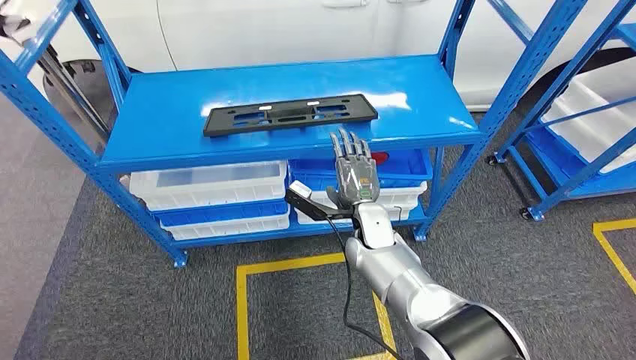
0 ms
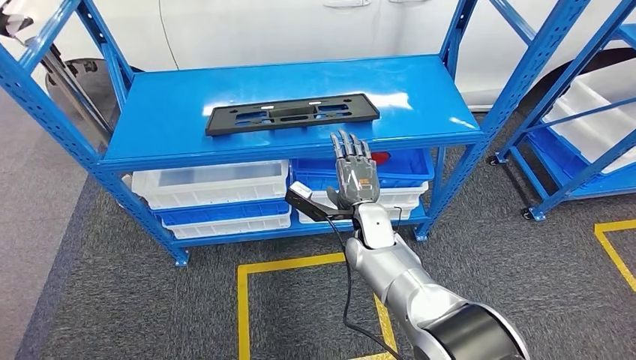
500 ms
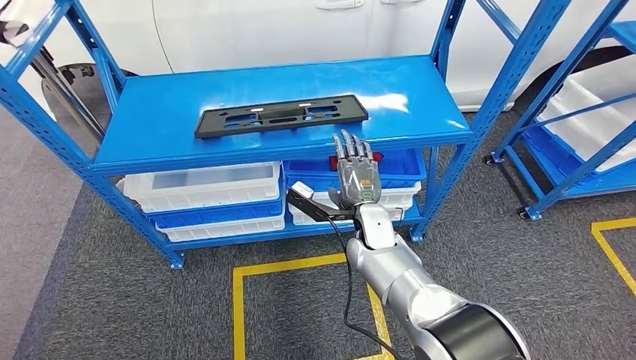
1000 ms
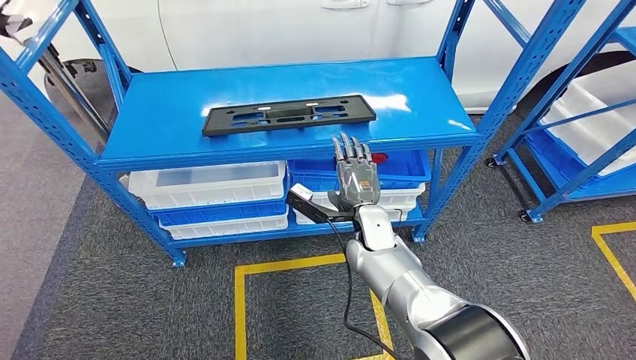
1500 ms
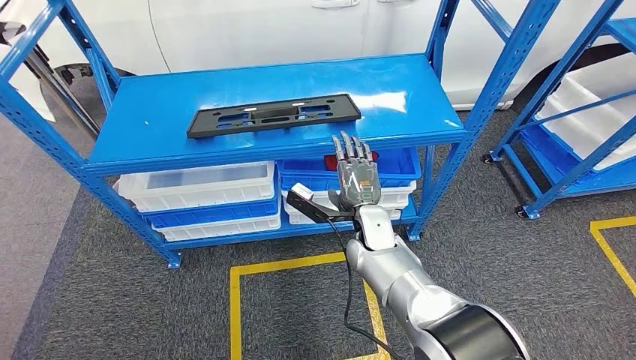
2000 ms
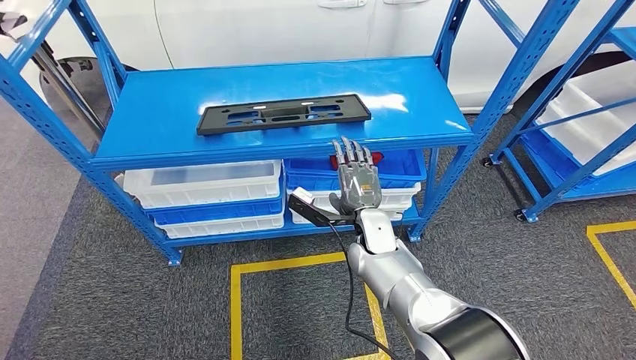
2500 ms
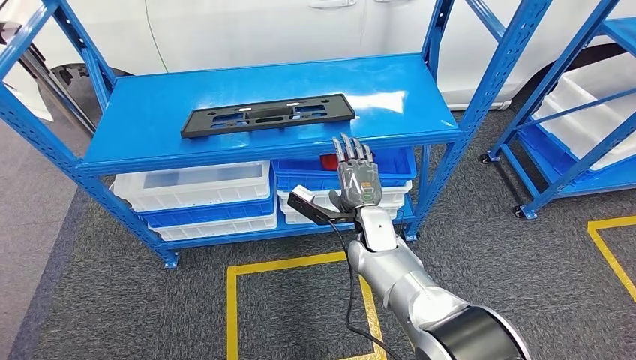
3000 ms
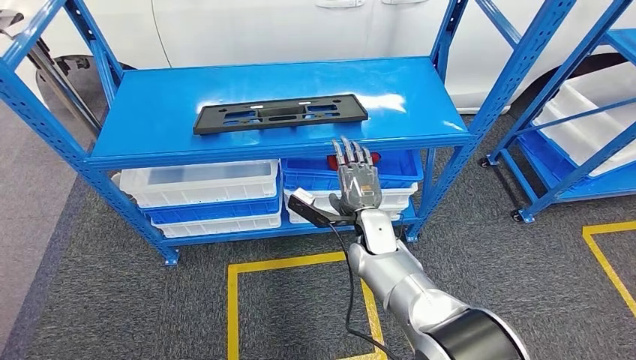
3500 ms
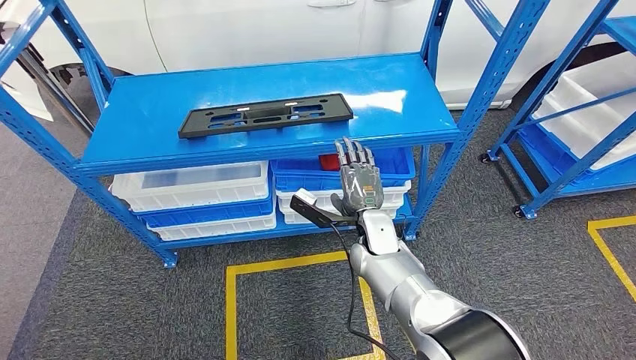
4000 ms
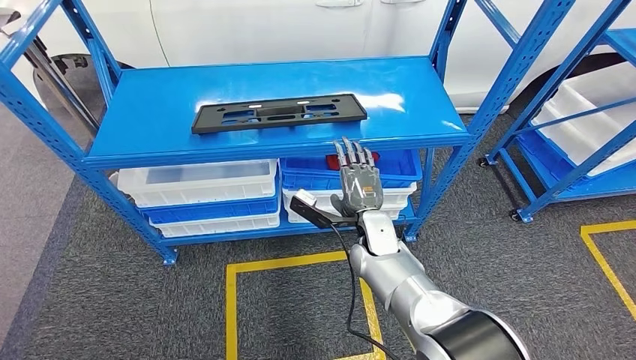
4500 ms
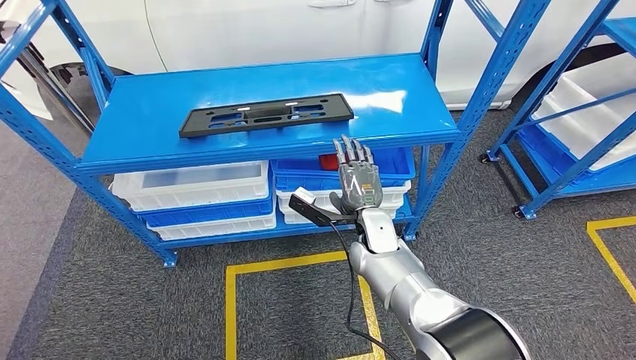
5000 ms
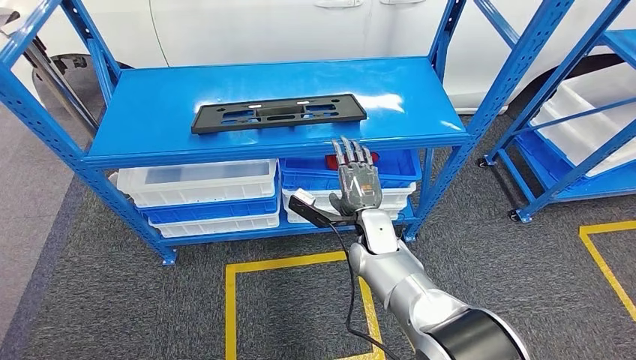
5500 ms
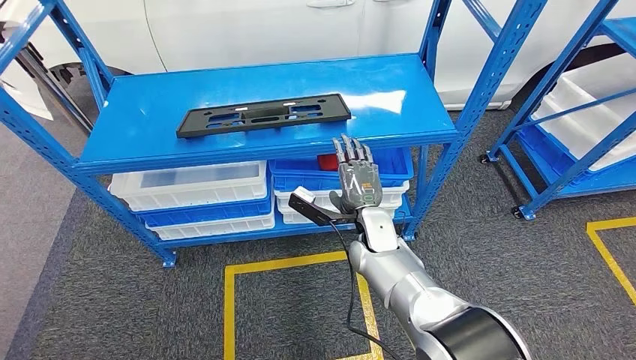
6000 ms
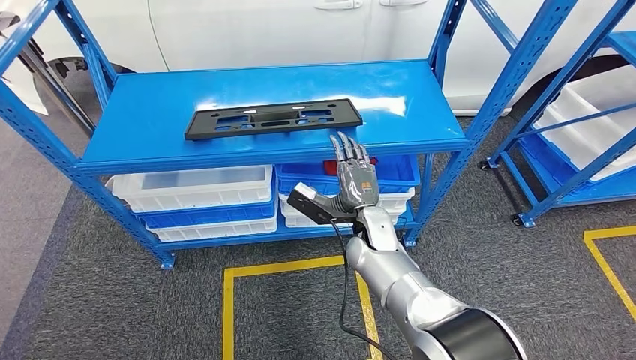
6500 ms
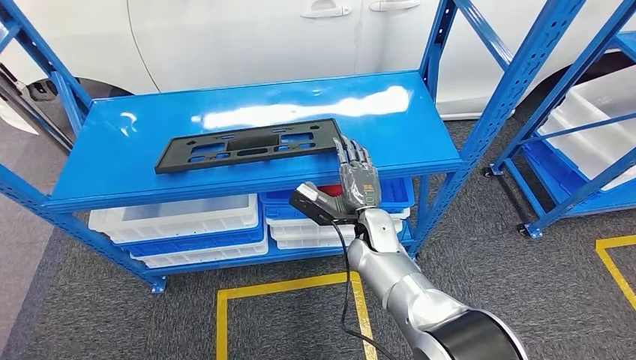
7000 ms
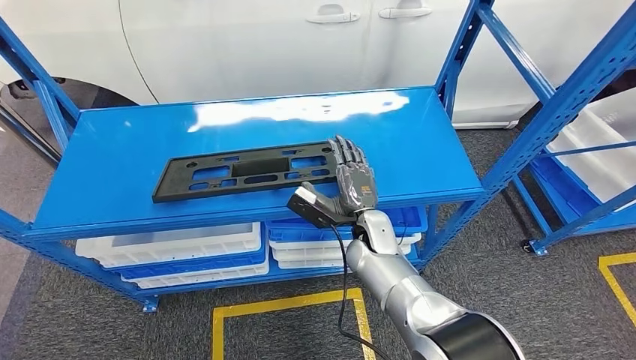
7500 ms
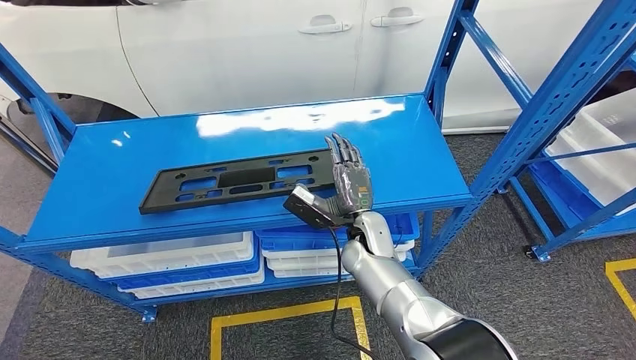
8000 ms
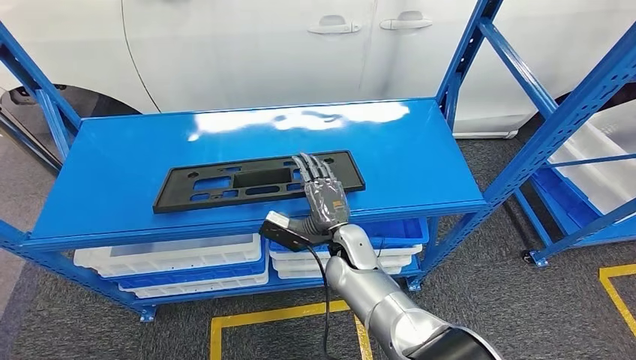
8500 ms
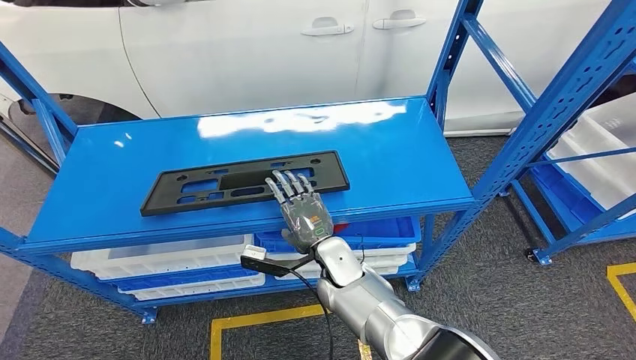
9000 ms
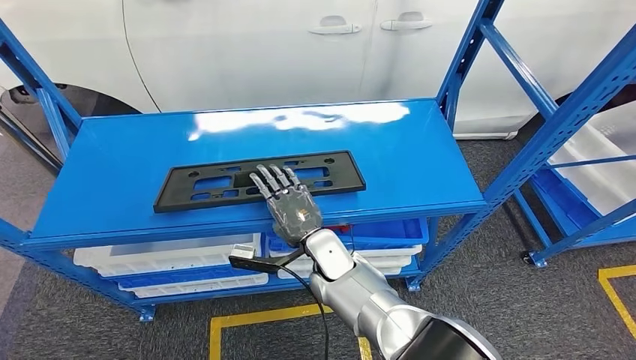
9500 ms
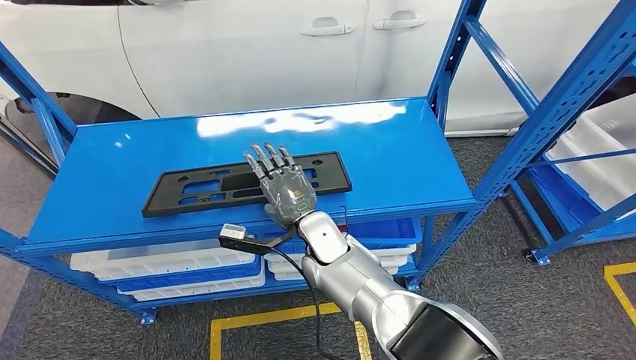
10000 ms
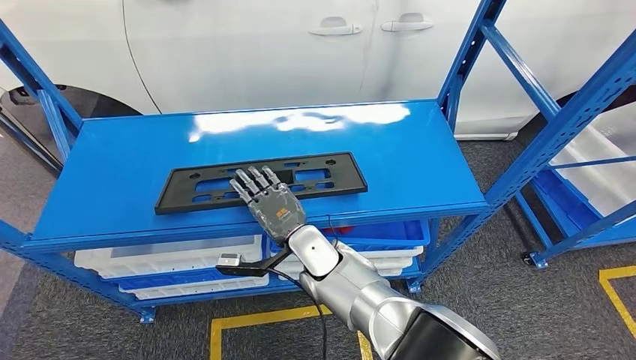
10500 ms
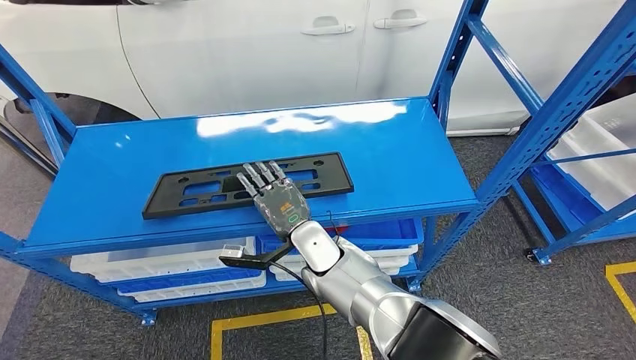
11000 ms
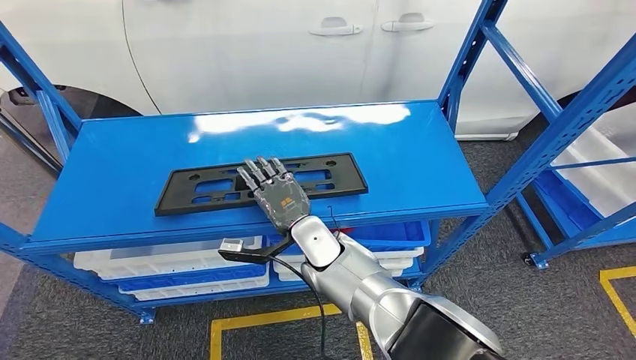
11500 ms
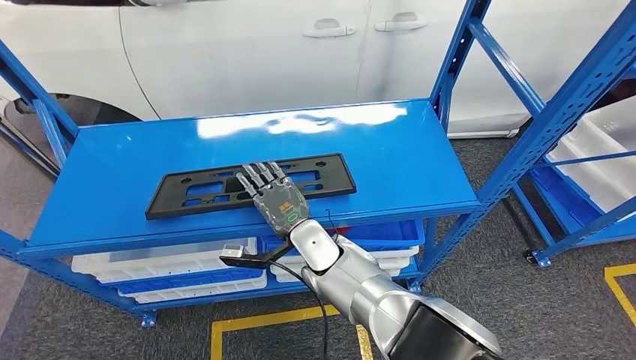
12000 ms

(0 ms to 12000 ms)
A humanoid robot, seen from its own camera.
2000 ms - 6000 ms: Both hands stay about where they are.
10000 ms - 12000 ms: There are only small adjustments of the hands.

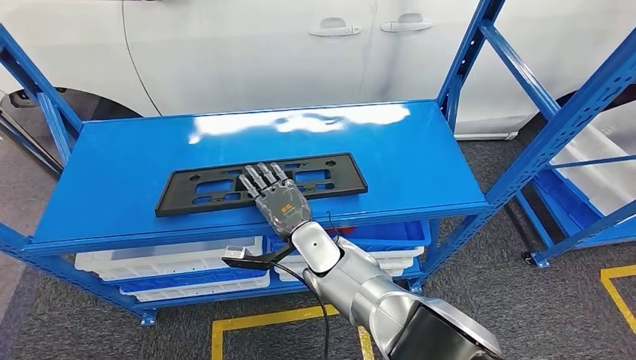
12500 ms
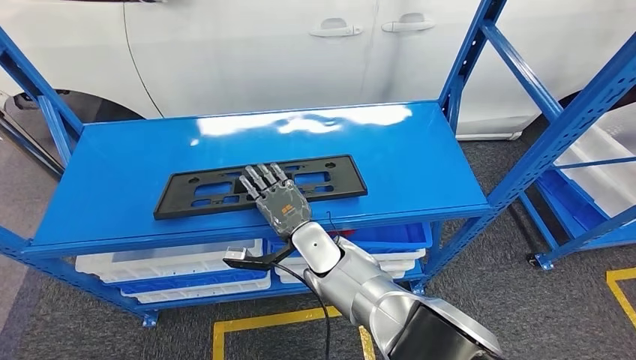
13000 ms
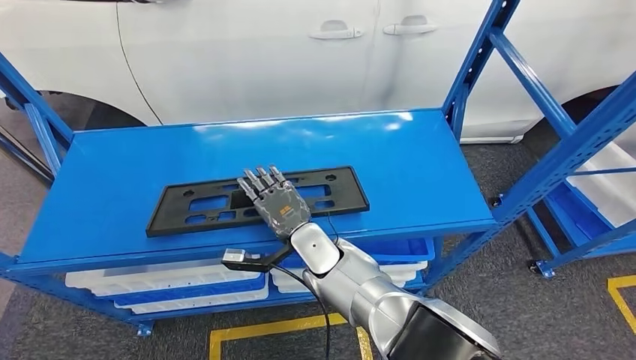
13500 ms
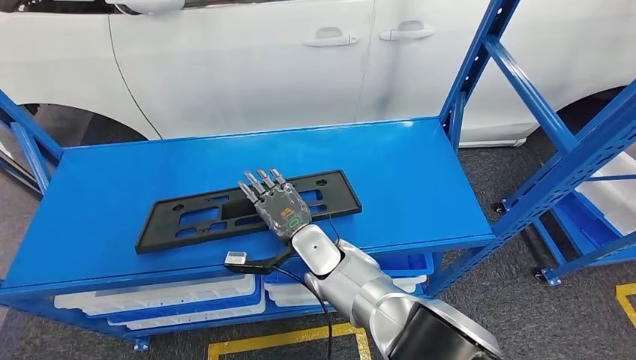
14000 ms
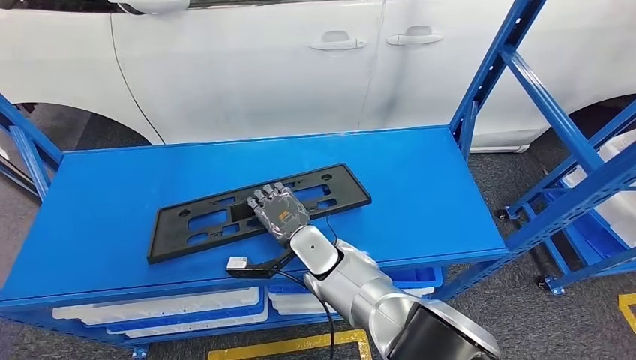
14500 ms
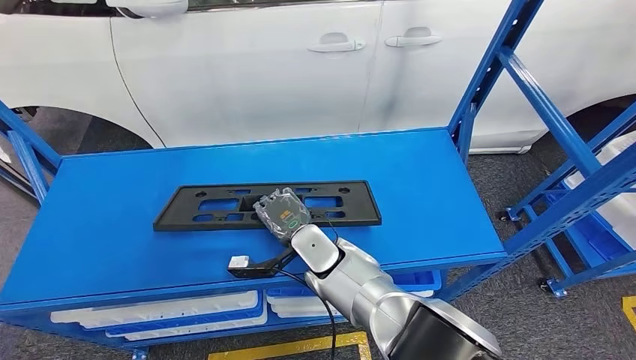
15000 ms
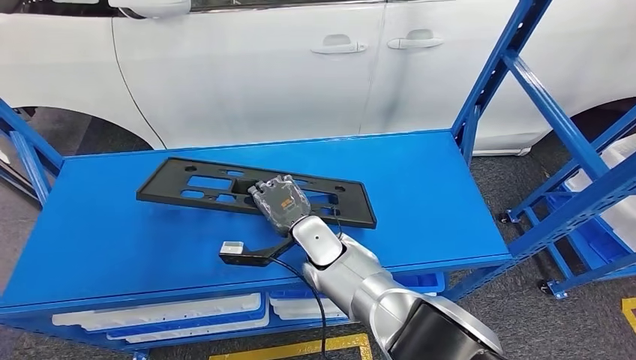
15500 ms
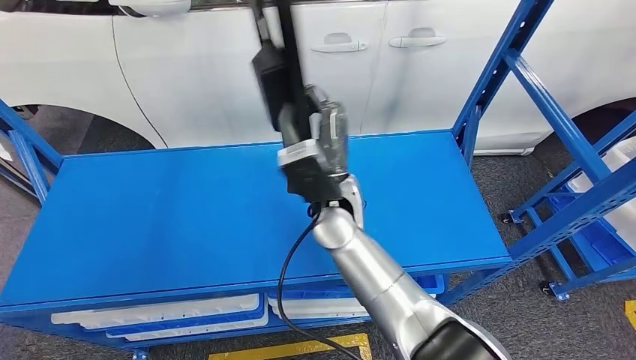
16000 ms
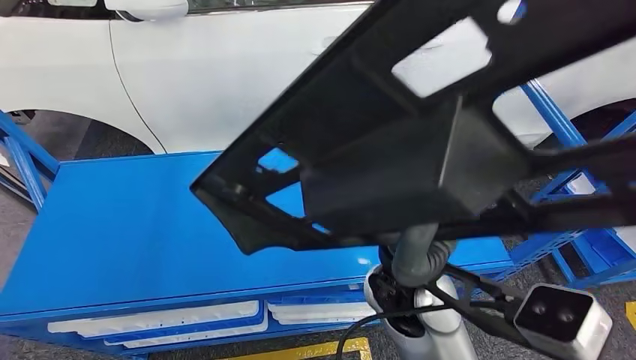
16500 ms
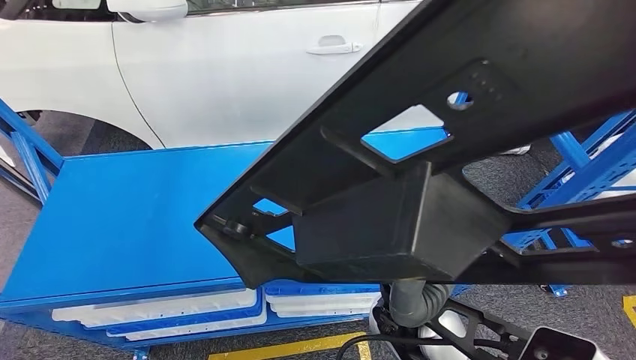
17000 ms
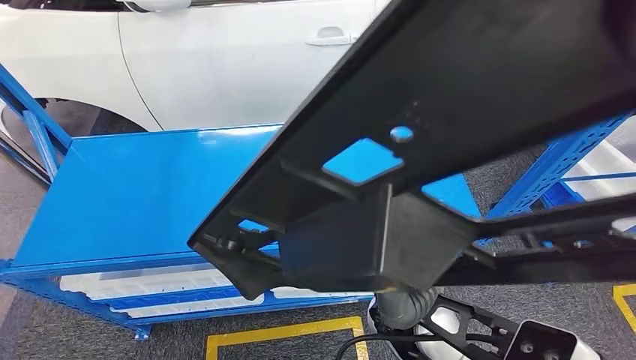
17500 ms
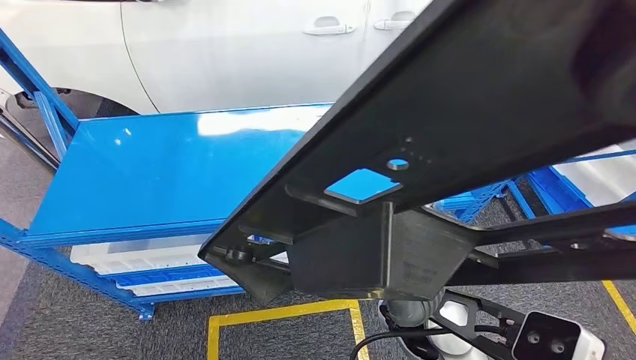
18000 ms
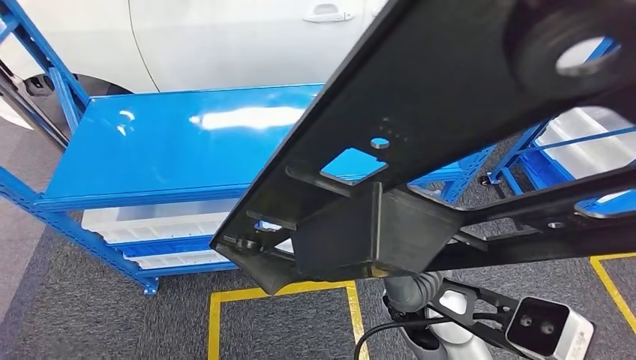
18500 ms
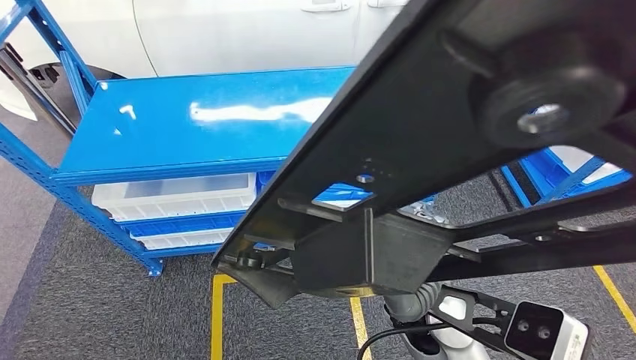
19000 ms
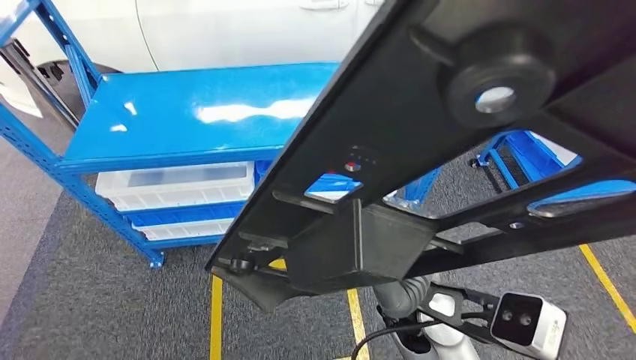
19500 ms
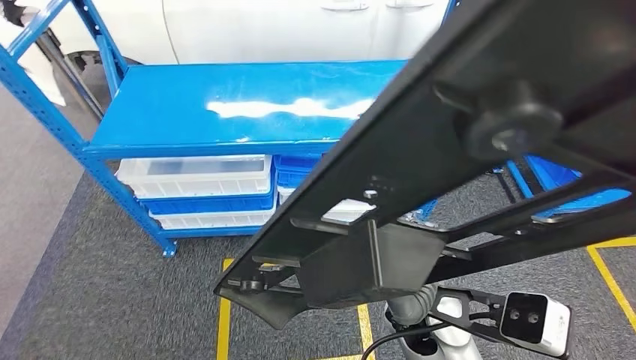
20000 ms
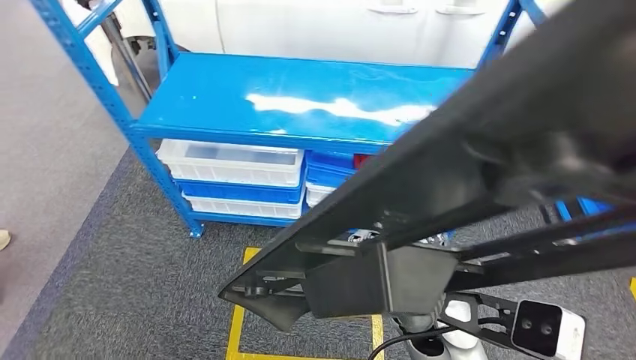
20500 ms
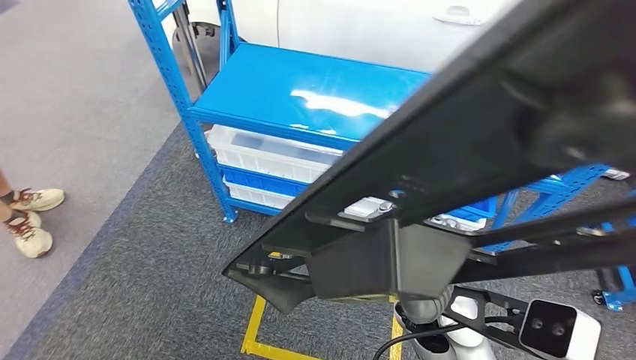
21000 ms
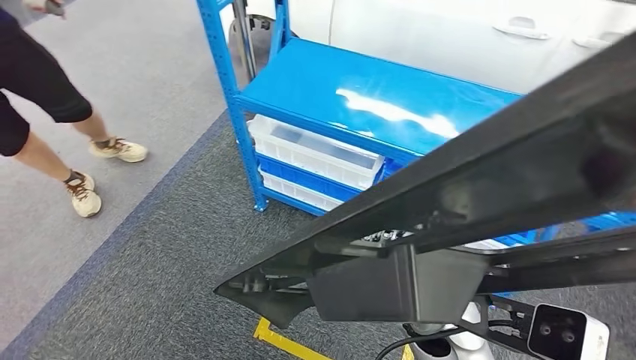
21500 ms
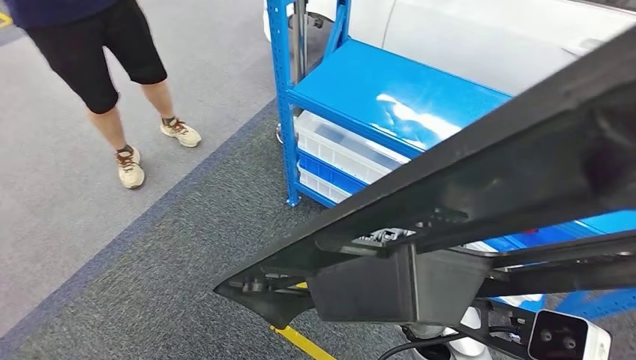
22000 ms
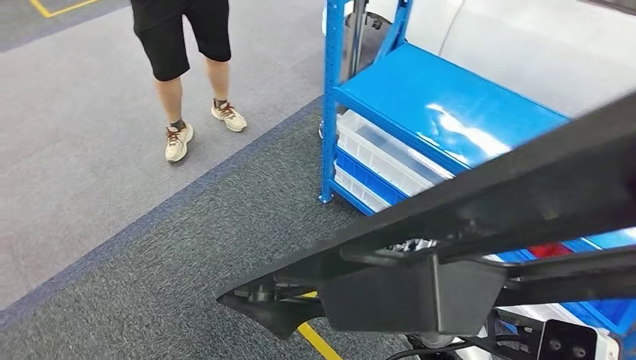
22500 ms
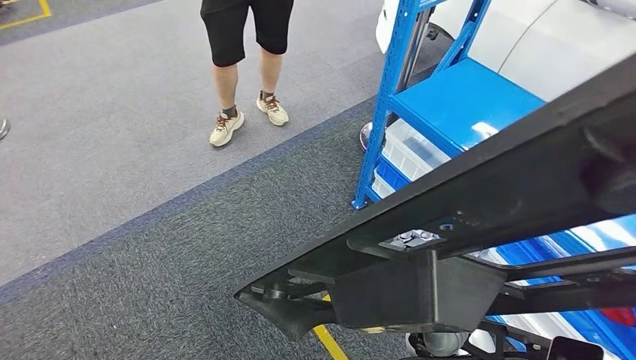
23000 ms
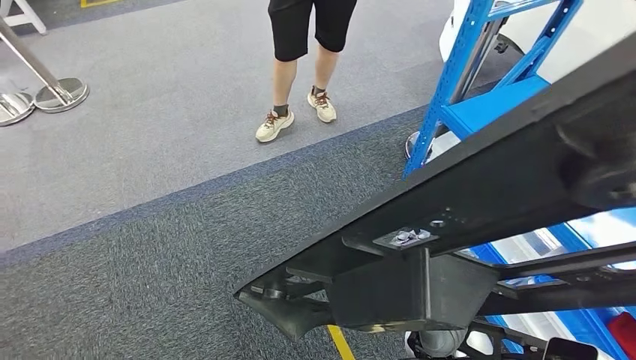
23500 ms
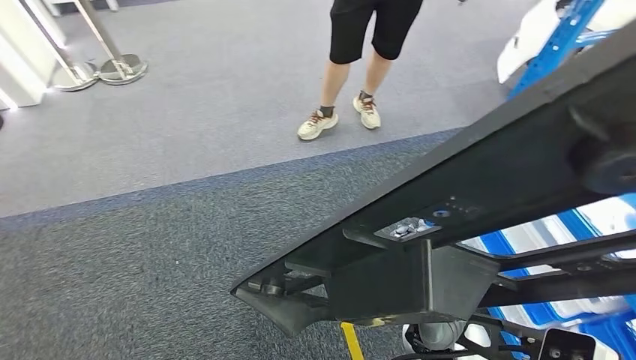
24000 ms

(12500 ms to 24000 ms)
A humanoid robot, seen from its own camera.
Step, 12500 ms - 16500 ms: Pick up the large material from the shelf.
